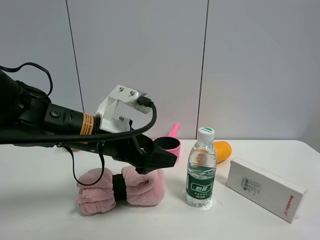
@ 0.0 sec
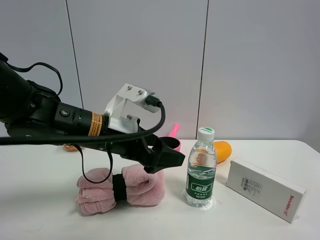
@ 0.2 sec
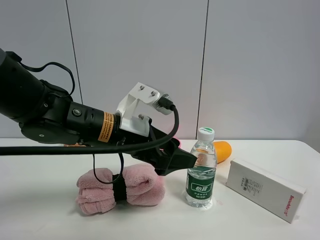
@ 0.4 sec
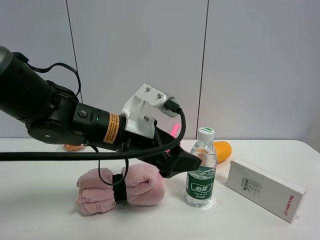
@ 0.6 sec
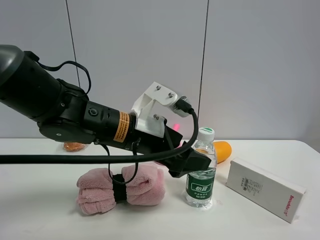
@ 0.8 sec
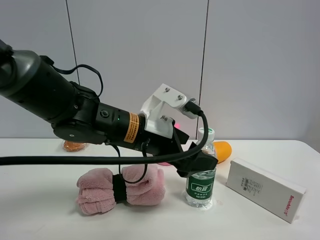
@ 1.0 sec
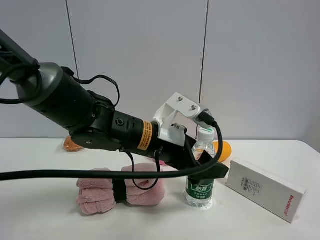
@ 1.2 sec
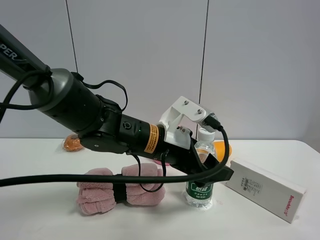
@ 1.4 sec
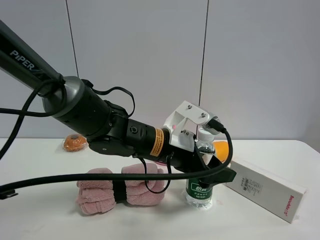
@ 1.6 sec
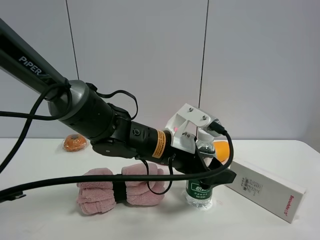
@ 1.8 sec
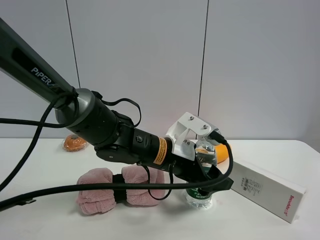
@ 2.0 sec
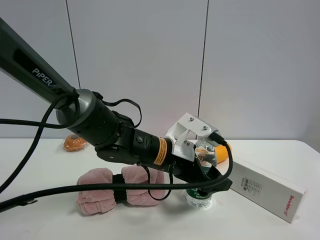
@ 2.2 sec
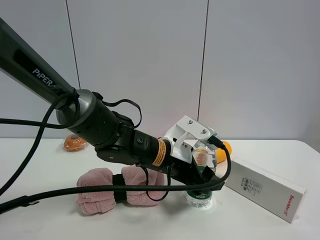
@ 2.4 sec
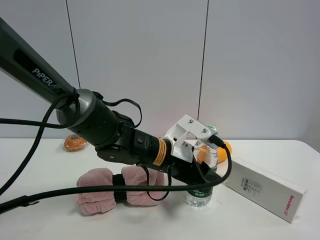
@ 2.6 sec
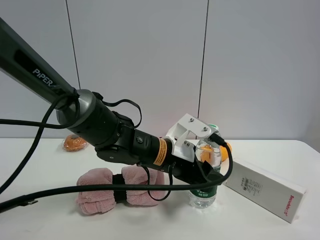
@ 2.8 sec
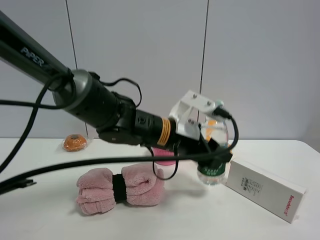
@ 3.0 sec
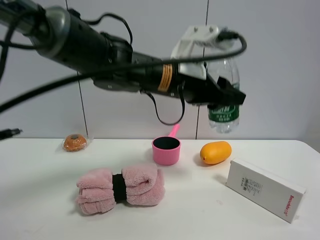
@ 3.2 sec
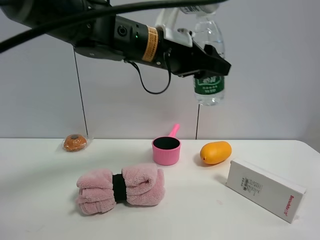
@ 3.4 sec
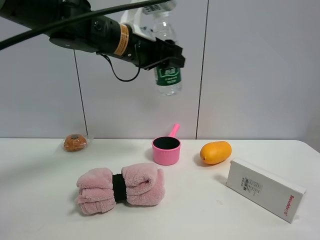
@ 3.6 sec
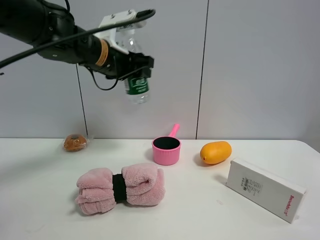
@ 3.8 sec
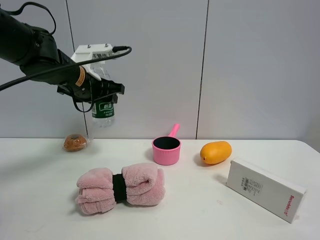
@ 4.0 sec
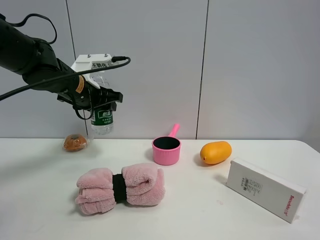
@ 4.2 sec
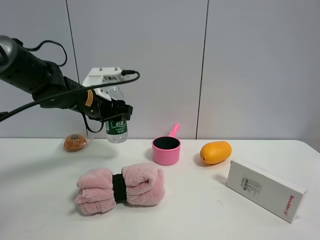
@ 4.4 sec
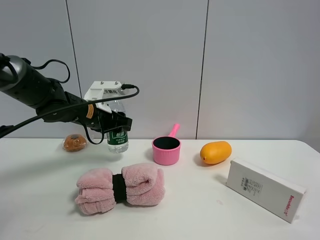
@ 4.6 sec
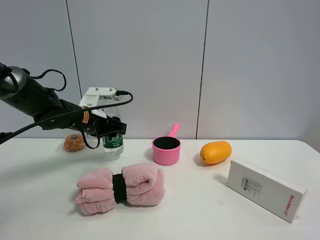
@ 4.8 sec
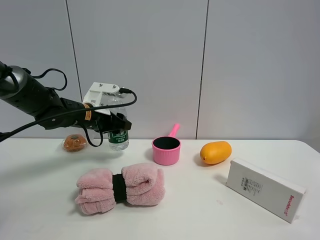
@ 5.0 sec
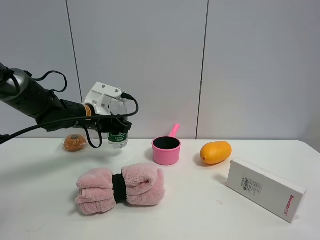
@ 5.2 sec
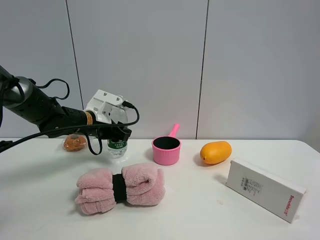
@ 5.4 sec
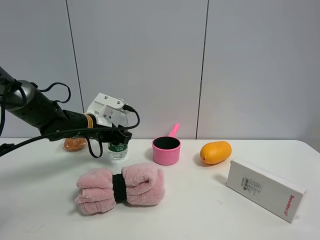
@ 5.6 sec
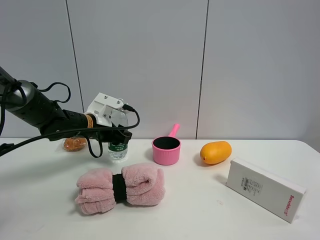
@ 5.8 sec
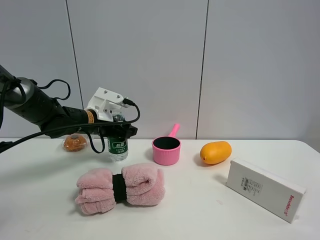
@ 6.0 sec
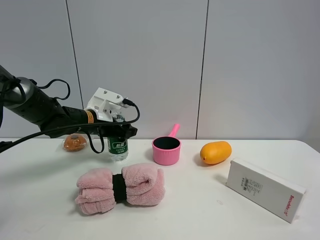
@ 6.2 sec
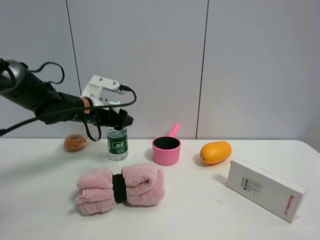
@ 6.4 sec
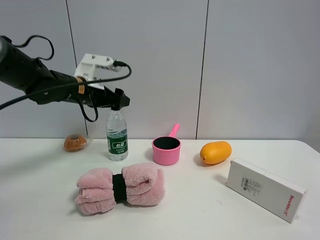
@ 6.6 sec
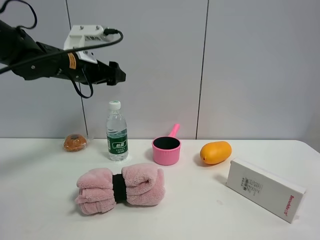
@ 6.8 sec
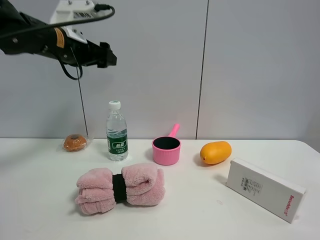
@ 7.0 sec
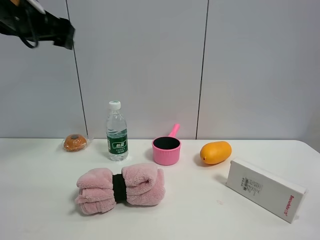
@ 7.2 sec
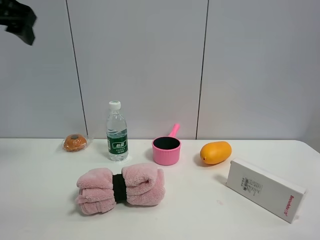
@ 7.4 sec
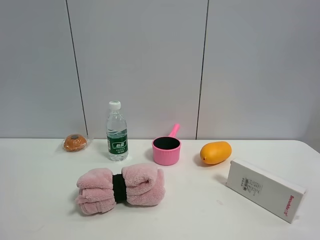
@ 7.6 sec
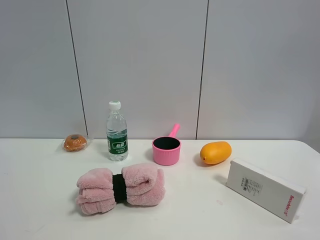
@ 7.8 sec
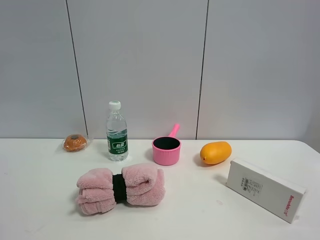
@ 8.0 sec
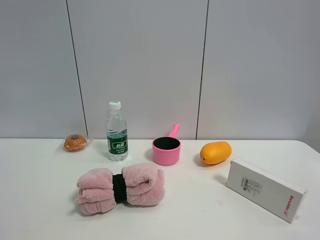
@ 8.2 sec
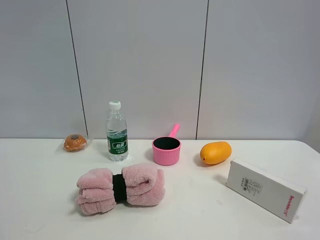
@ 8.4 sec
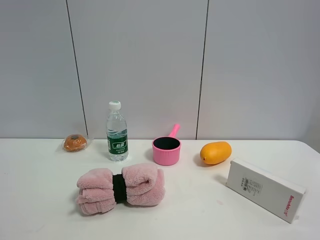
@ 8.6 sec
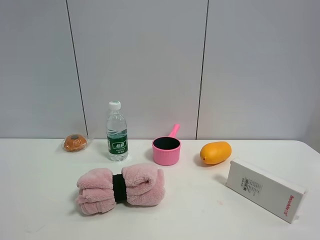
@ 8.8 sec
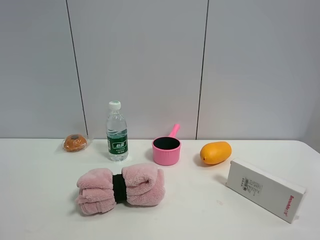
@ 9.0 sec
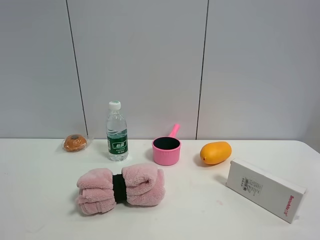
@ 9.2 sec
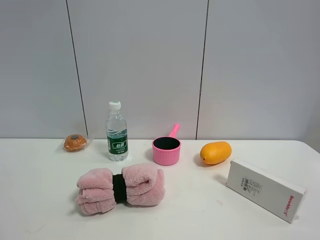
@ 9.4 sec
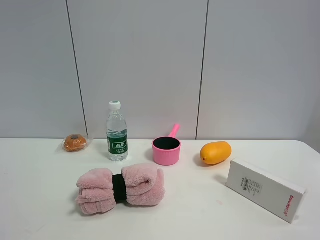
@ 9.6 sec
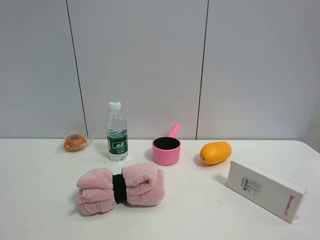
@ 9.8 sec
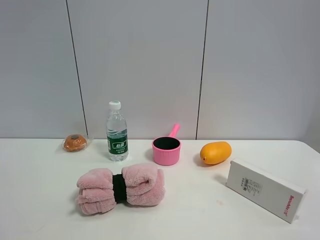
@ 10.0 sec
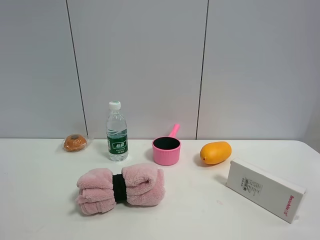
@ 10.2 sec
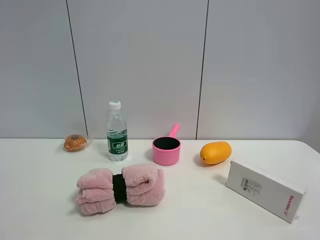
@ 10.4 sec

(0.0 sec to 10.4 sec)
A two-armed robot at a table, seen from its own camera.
Task of the whole recording: the gripper move the object.
Step, 0.0 sec - 2.6 sec: Grasp the YiBao mineral water with the left gripper.
Step, 2.8 sec - 6.2 sec: Place the YiBao mineral water on the table with the left gripper.
0.0 sec - 1.4 sec: The left gripper shifts some 10 cm to the right.
1.4 sec - 3.0 sec: The left gripper closes.
3.0 sec - 4.4 sec: The left gripper moves to the left and forward, approximately 20 cm.
4.4 sec - 6.0 sec: The left gripper ends up roughly 5 cm from where it was, and opens.
6.0 sec - 7.4 sec: The left gripper goes some 30 cm upward and backward.
7.4 sec - 9.0 sec: The left gripper travels backward by roughly 30 cm.

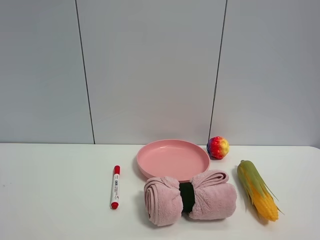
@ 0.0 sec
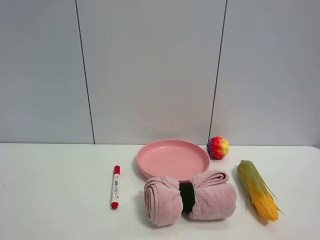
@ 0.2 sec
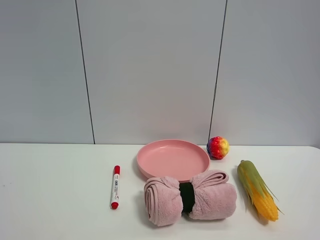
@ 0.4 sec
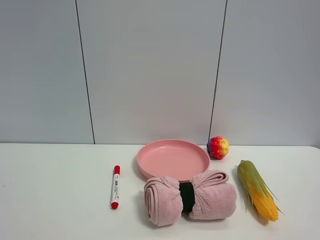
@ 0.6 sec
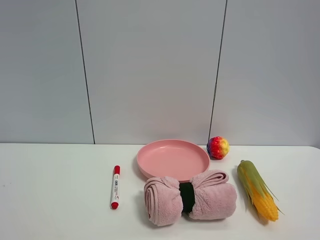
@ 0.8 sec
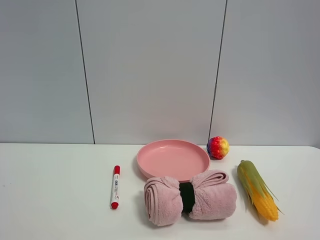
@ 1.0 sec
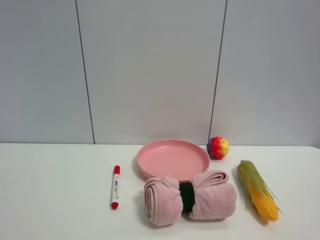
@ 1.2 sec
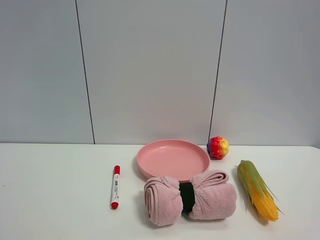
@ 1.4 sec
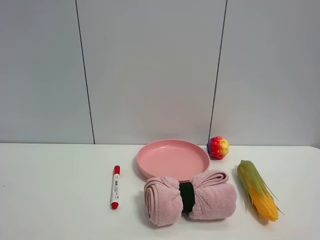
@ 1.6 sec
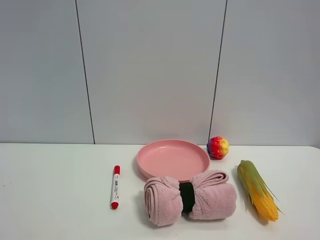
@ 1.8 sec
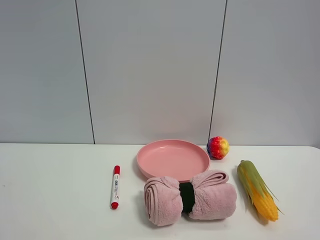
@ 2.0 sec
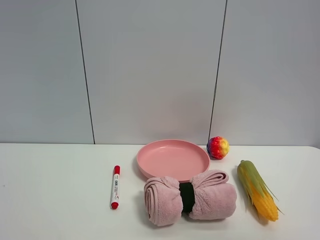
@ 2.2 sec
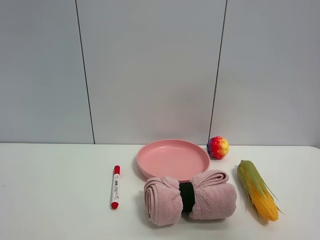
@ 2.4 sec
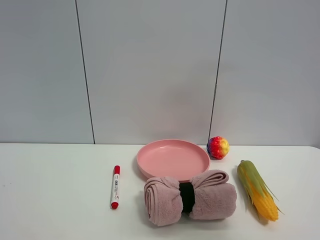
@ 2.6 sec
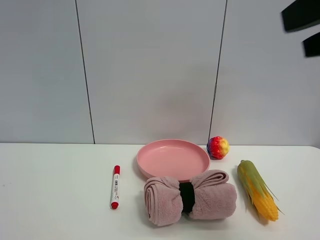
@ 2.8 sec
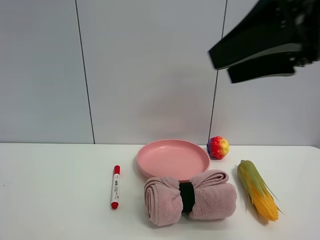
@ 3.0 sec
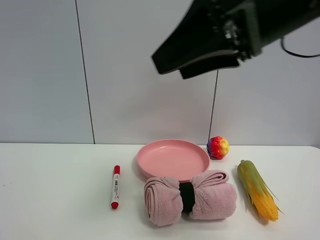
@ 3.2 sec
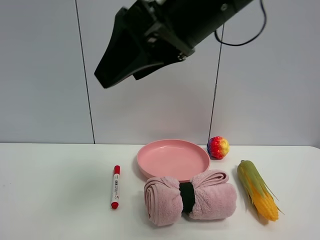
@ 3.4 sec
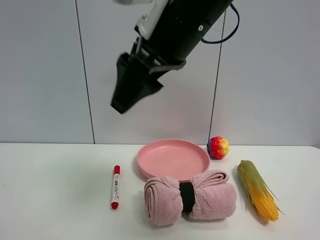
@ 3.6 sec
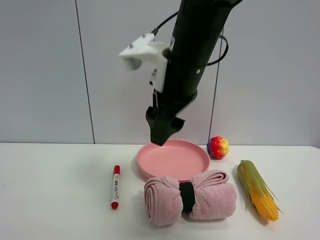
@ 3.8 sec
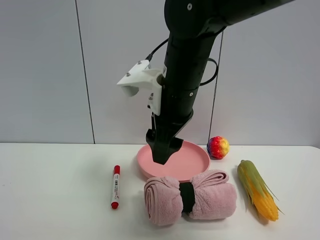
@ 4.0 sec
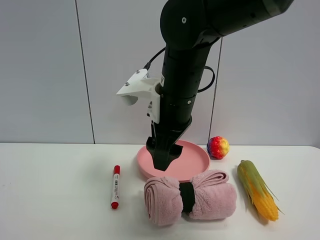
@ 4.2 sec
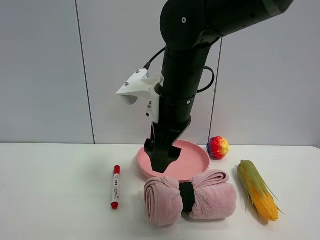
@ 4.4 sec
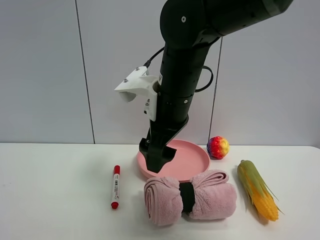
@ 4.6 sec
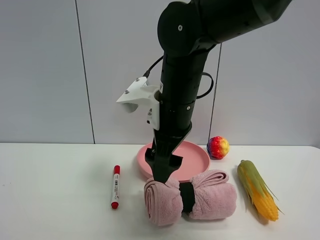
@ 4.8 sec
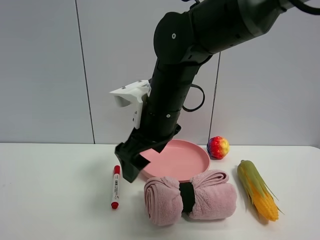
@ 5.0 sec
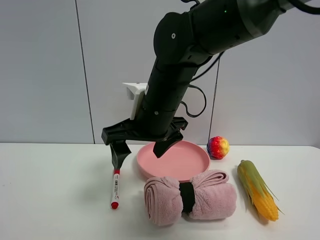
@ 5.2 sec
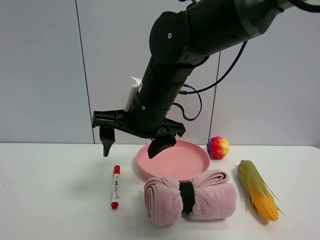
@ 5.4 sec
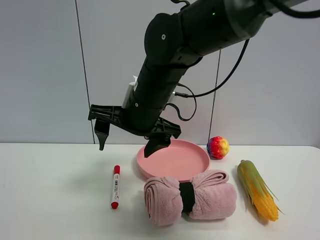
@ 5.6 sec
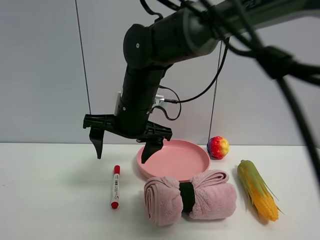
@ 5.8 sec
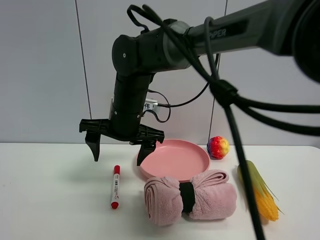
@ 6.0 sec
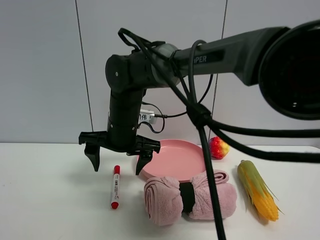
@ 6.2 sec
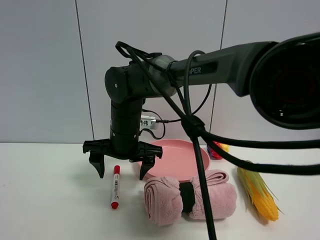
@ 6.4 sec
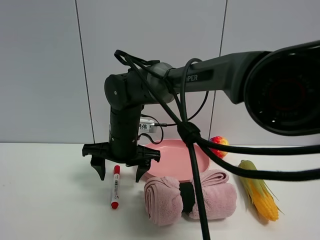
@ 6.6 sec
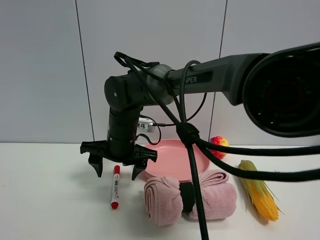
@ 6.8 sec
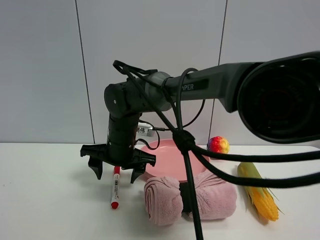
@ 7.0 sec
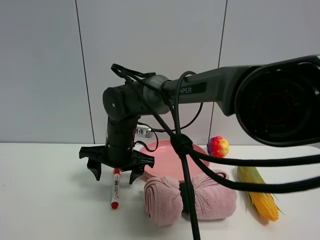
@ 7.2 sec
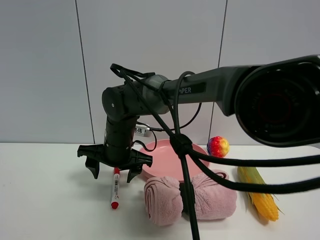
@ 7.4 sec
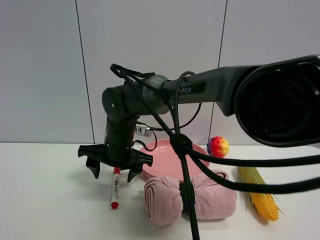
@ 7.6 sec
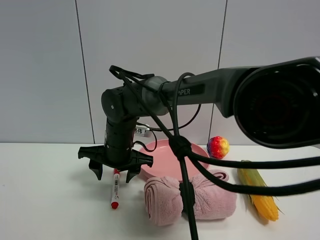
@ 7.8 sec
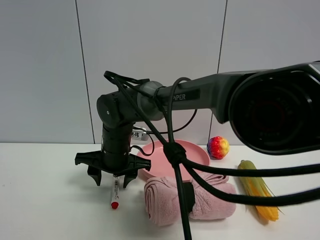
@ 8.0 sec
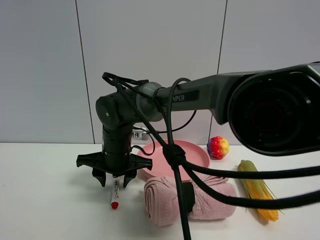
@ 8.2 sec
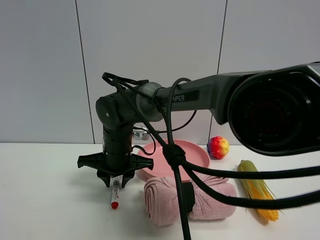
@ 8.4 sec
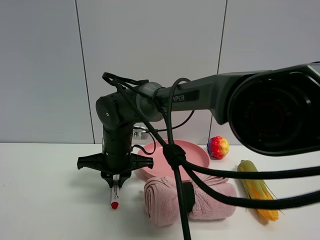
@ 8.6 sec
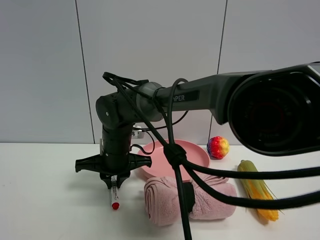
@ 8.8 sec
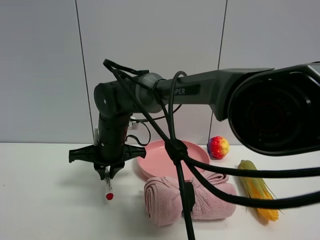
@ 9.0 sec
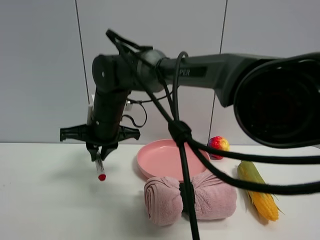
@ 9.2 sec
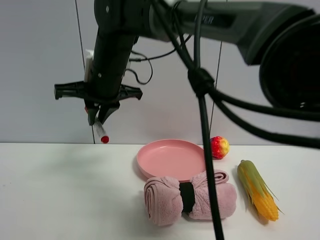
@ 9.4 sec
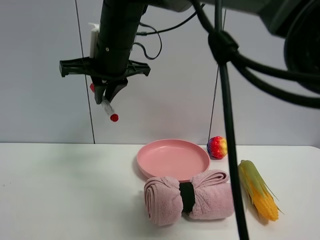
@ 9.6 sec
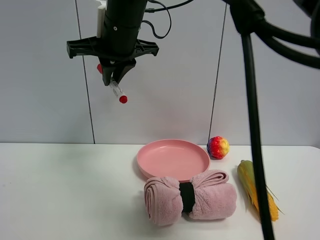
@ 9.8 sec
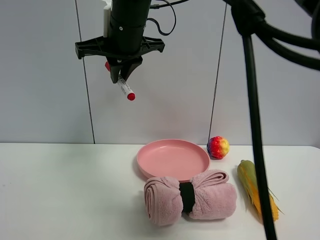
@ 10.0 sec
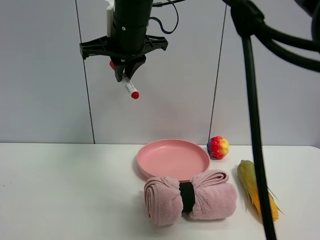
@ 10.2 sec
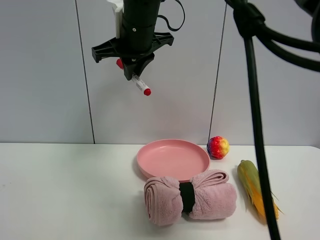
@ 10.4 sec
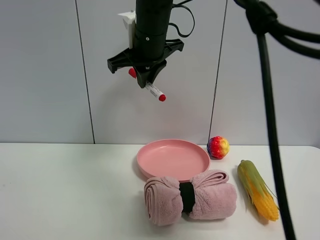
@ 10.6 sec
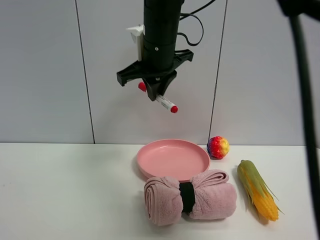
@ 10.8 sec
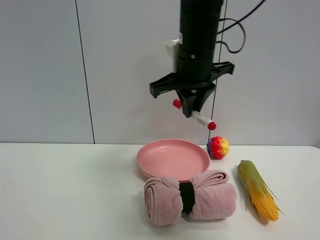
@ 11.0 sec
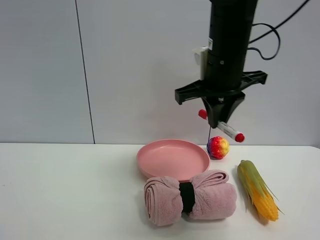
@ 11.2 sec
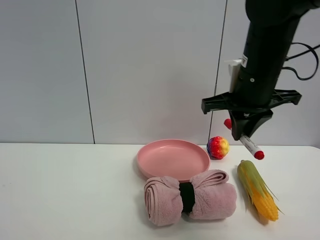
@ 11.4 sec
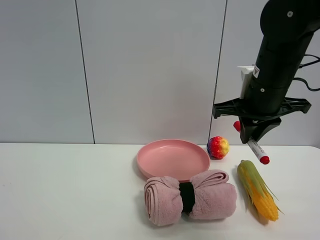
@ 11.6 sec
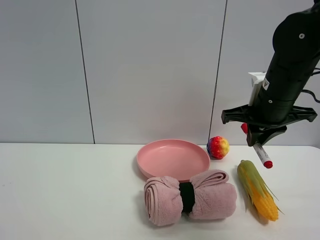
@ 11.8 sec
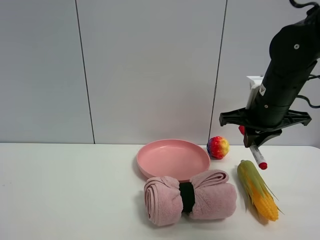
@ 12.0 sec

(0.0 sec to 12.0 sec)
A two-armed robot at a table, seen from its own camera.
Task of the whole recording: the gripper move the object.
Step, 0.0 sec - 8.6 sec: Grasp the red marker pen with the right gripper.
0.0 sec - 1.6 sec: Both grippers stay put.
1.6 sec - 3.0 sec: The right gripper shifts approximately 25 cm forward and to the left.
3.0 sec - 4.4 sec: The right gripper goes about 20 cm to the left, downward and forward.
4.4 sec - 6.0 sec: The right gripper goes roughly 10 cm to the left and forward.
6.0 sec - 7.6 sec: The right gripper shifts about 5 cm downward.
7.6 sec - 9.0 sec: The right gripper closes its fingers.
9.0 sec - 10.4 sec: The right gripper heads upward, covering roughly 20 cm.
10.4 sec - 12.0 sec: The right gripper is displaced to the right and downward by about 25 cm.
